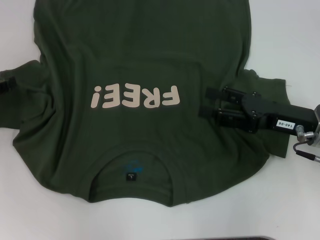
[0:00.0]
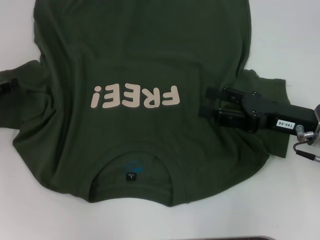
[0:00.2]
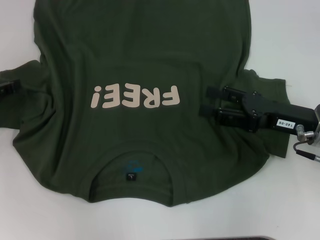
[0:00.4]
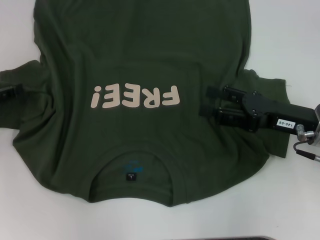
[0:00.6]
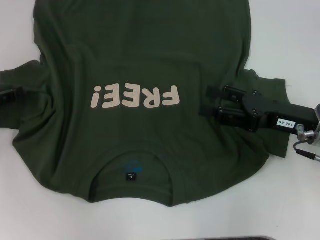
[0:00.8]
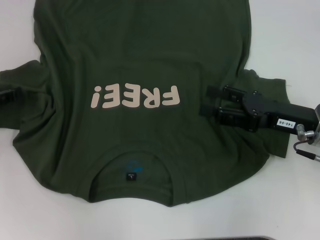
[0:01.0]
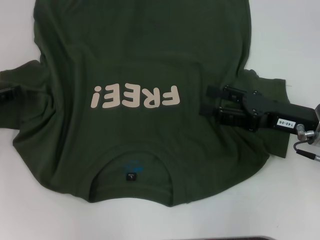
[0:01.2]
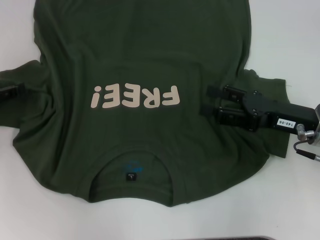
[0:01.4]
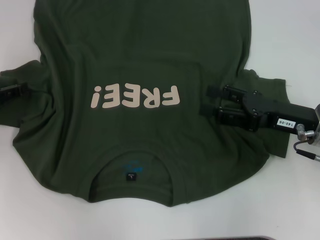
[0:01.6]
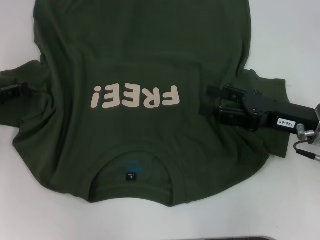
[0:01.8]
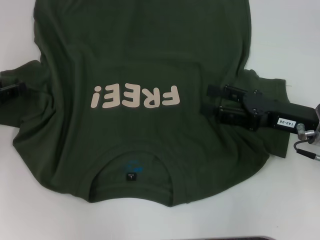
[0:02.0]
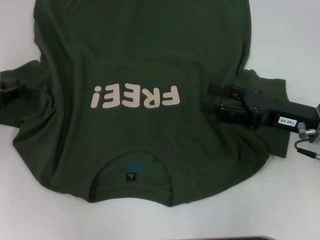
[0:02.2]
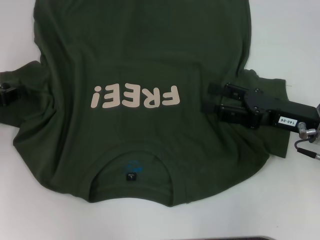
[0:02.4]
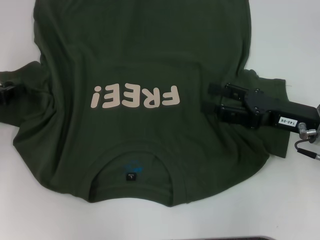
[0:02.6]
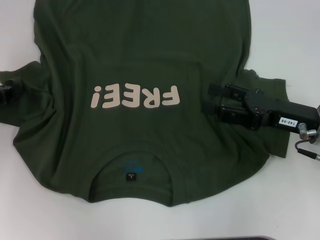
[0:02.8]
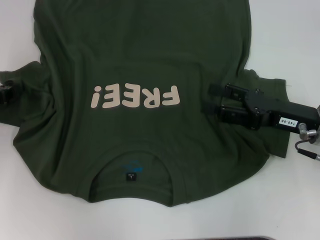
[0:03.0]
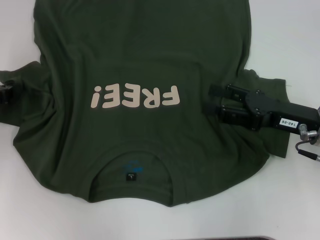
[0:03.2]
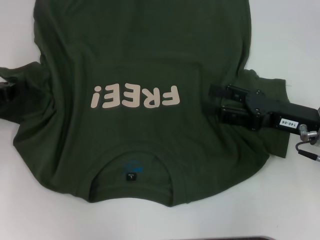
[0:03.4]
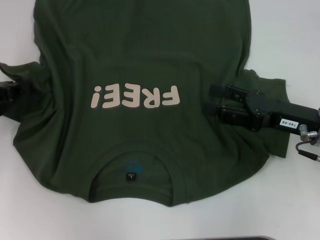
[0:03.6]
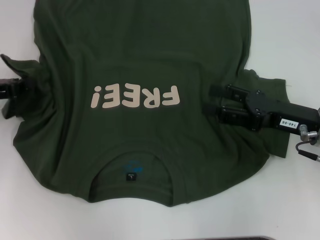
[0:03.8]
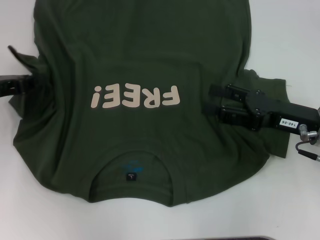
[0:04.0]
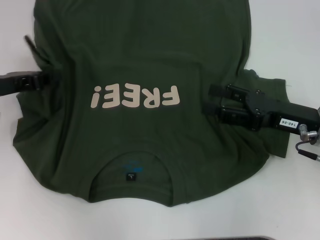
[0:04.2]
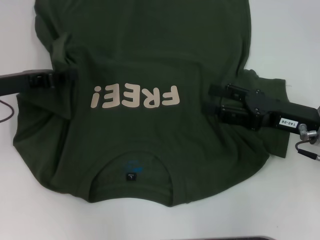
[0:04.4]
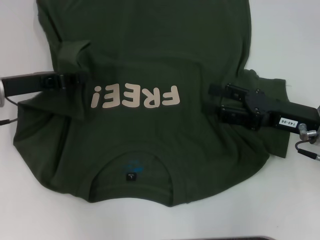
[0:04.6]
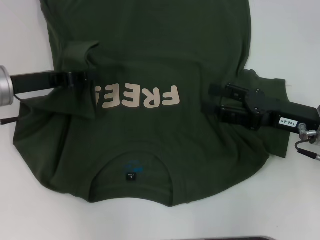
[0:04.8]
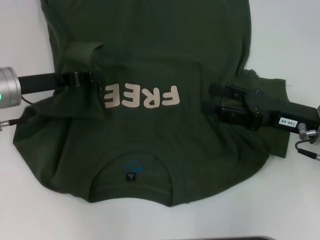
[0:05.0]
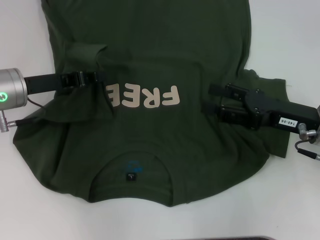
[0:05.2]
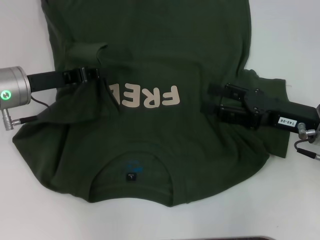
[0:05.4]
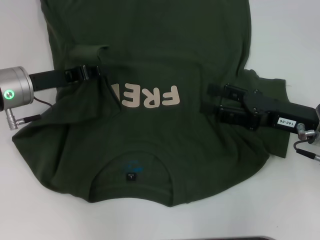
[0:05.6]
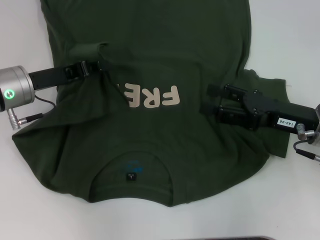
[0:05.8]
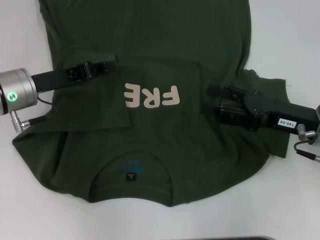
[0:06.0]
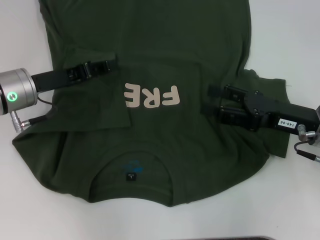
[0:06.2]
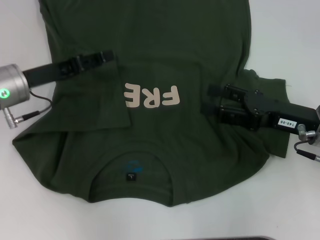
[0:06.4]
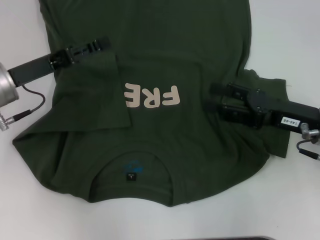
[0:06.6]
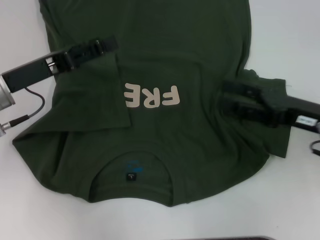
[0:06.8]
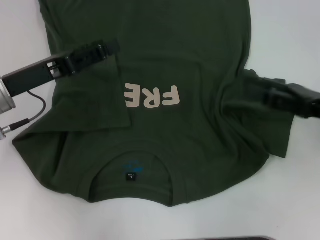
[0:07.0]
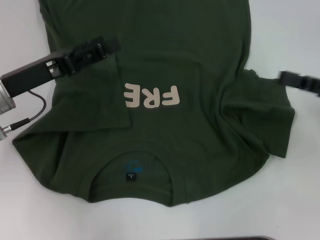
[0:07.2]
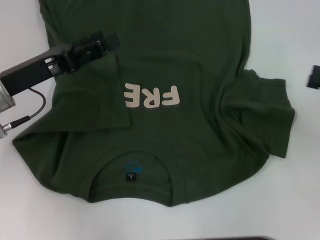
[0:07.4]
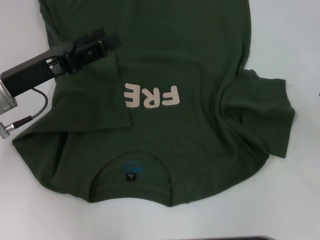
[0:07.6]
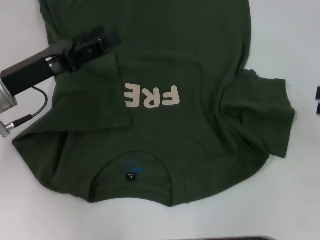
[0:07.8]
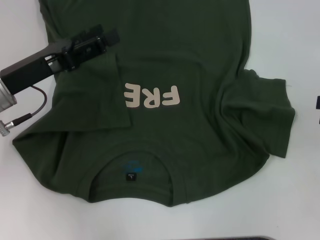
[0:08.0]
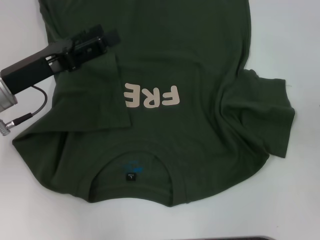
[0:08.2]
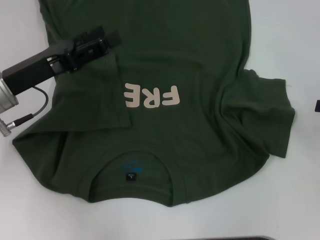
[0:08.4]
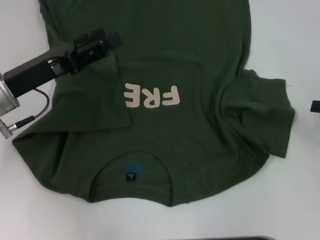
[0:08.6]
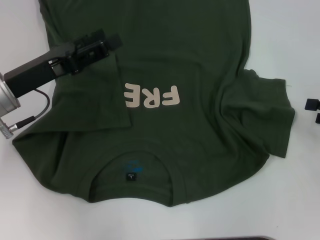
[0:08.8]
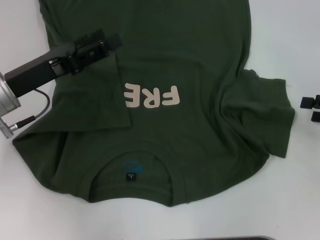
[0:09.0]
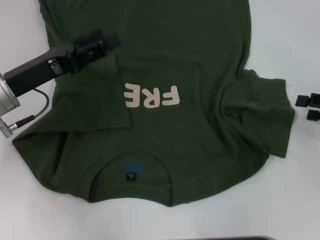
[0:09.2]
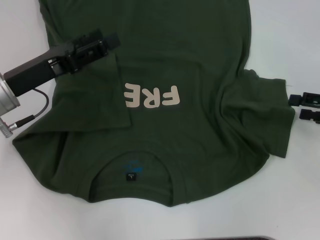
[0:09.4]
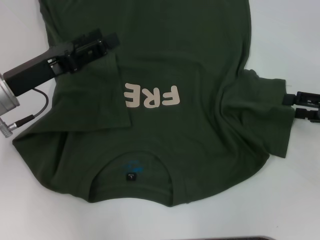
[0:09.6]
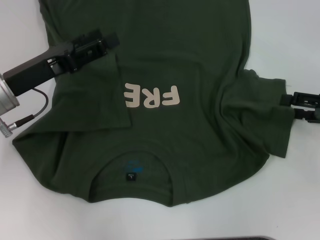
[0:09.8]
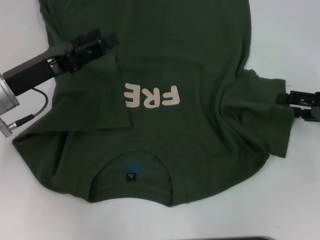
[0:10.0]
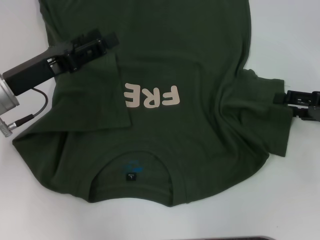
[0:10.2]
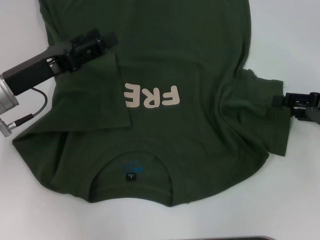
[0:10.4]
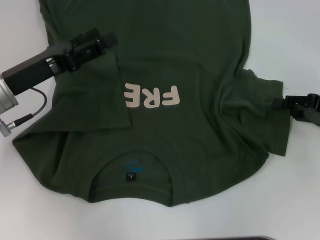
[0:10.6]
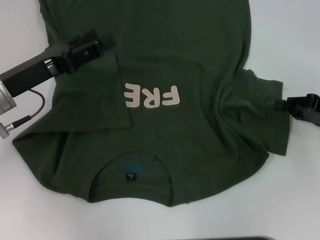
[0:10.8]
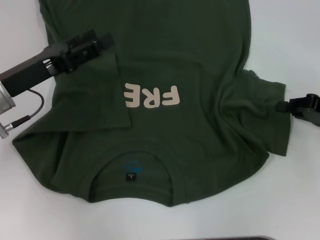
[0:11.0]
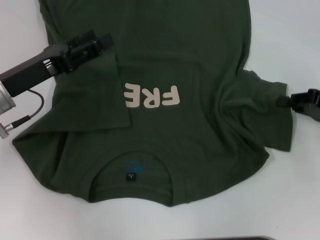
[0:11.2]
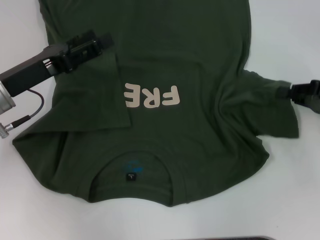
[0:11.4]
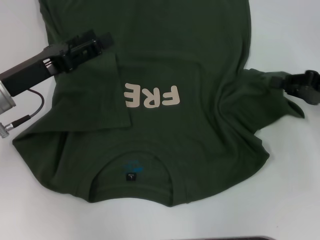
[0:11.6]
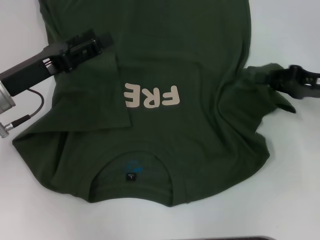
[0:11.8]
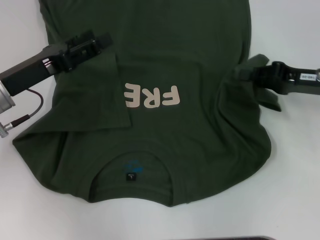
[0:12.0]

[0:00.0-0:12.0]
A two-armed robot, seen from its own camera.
Step, 0:00.0 to 0:05.8: Fold the bottom left sleeve with your left hand.
0:00.0 to 0:01.6: Neither gripper changes place.
0:03.0 to 0:04.4: The left gripper travels to the right by approximately 5 cm.
0:04.4 to 0:06.0: The left gripper is displaced to the right by about 5 cm.
0:06.0 to 0:07.6: The right gripper goes about 15 cm to the right and upward, while the left gripper changes place by some 5 cm, and opens its fingers.
0:09.0 to 0:10.4: The grippers stay close to where they were, moving slightly.
0:10.4 to 0:12.0: The right gripper travels to the left by about 5 cm, and closes its fingers.

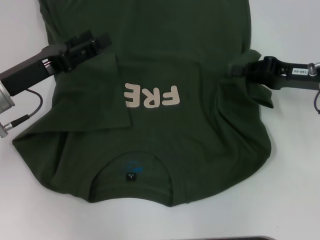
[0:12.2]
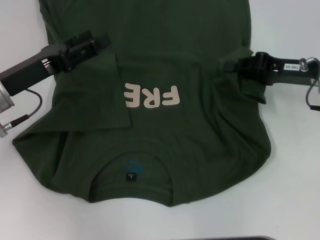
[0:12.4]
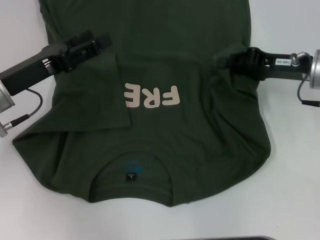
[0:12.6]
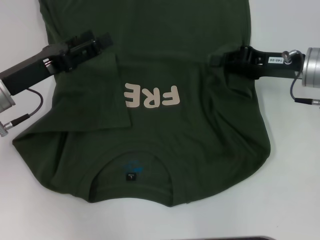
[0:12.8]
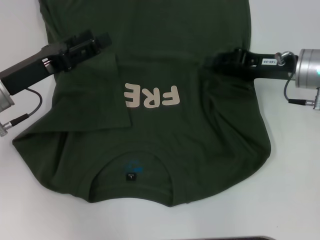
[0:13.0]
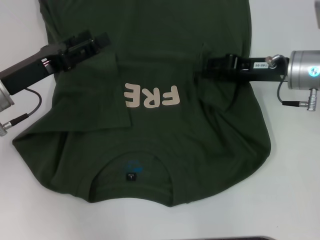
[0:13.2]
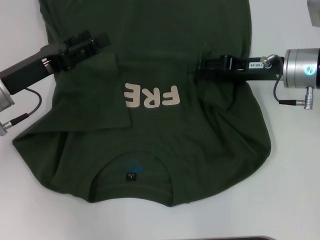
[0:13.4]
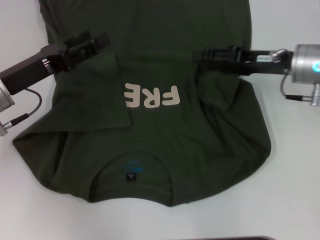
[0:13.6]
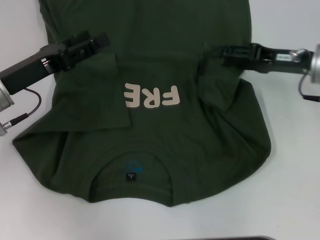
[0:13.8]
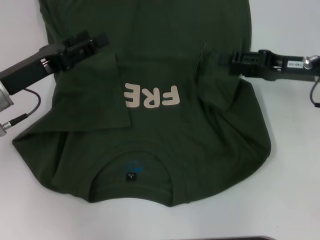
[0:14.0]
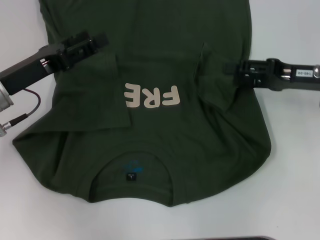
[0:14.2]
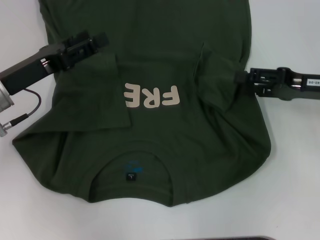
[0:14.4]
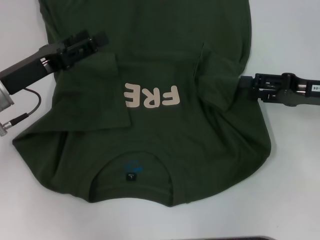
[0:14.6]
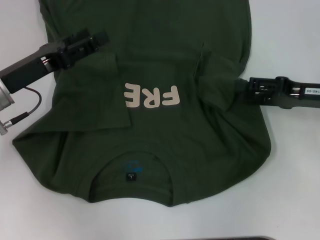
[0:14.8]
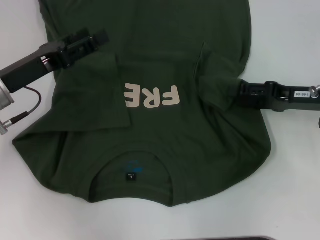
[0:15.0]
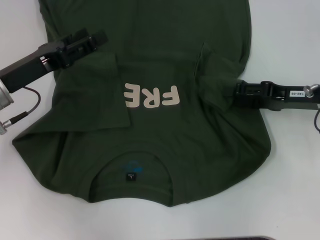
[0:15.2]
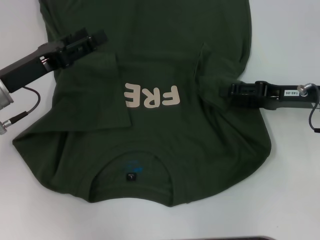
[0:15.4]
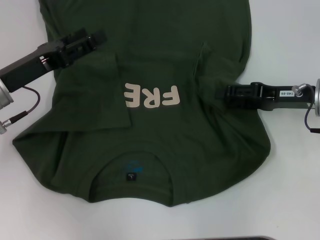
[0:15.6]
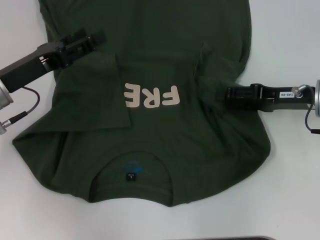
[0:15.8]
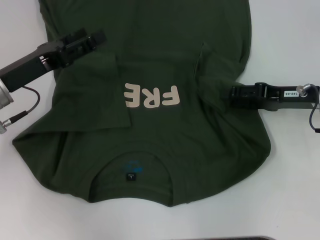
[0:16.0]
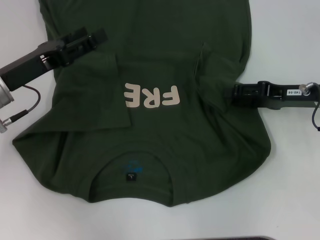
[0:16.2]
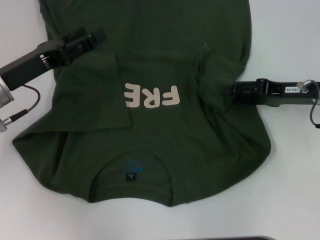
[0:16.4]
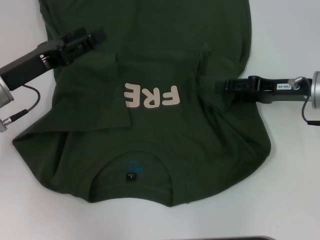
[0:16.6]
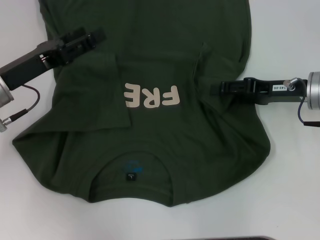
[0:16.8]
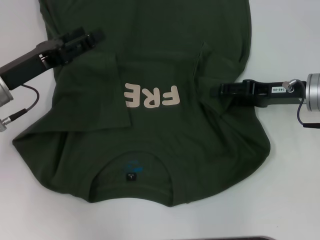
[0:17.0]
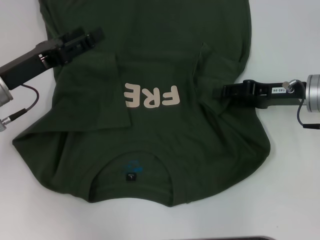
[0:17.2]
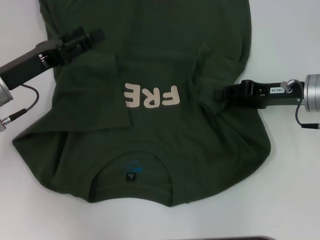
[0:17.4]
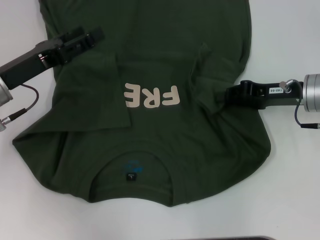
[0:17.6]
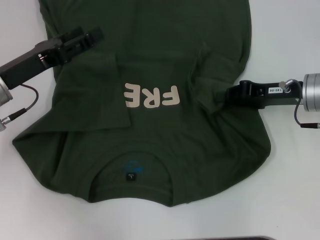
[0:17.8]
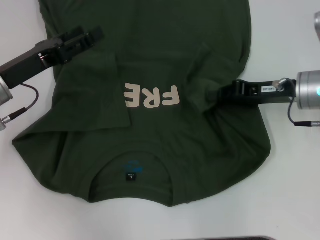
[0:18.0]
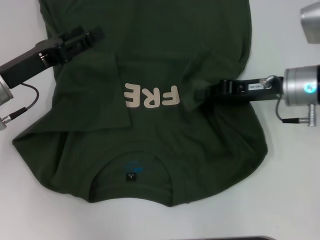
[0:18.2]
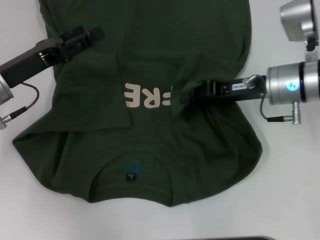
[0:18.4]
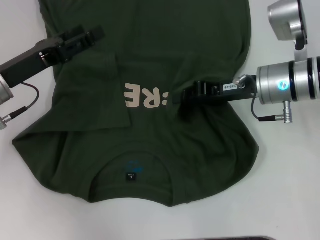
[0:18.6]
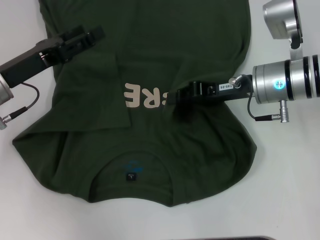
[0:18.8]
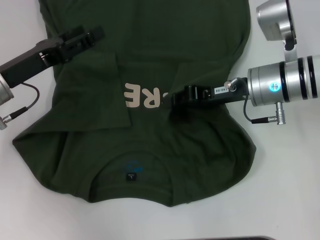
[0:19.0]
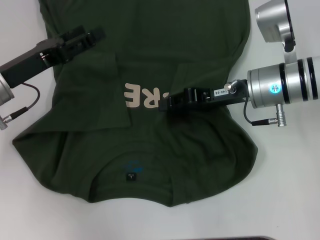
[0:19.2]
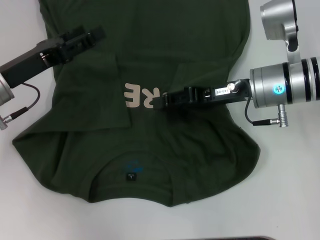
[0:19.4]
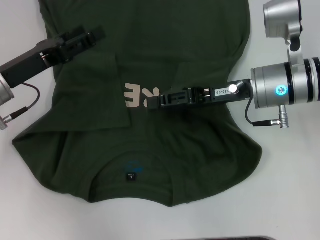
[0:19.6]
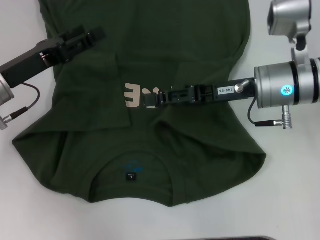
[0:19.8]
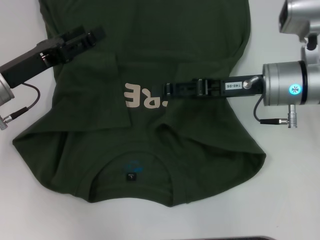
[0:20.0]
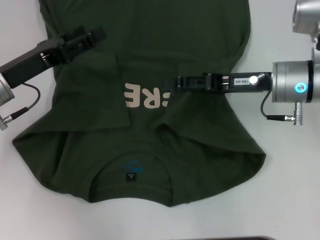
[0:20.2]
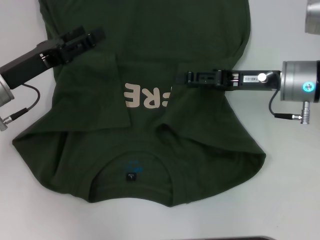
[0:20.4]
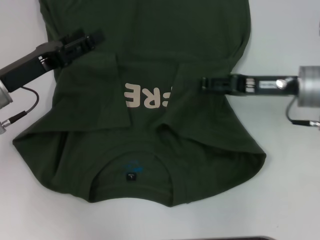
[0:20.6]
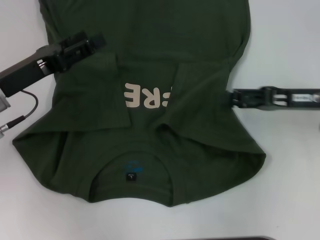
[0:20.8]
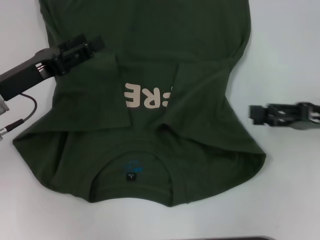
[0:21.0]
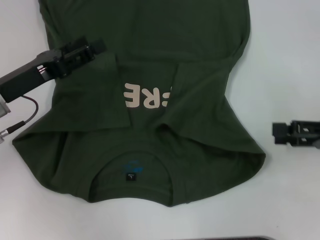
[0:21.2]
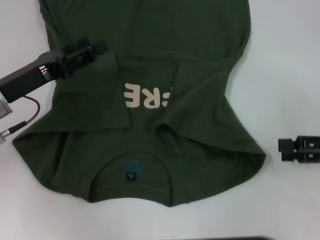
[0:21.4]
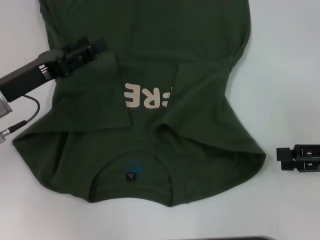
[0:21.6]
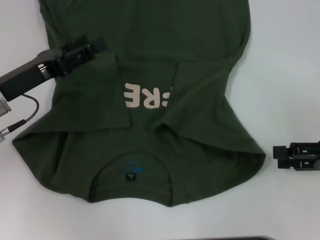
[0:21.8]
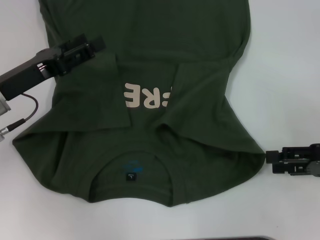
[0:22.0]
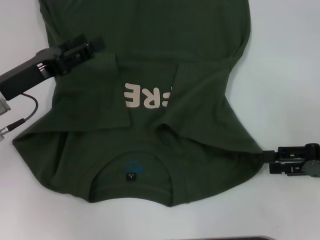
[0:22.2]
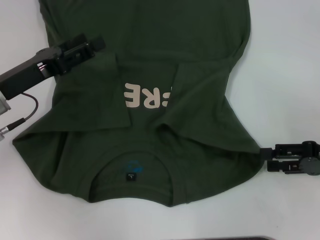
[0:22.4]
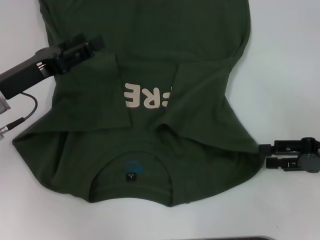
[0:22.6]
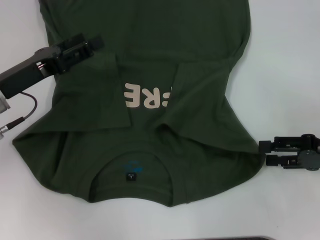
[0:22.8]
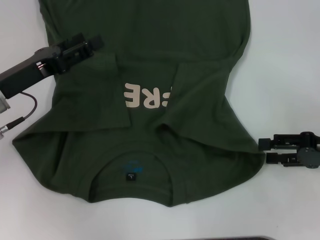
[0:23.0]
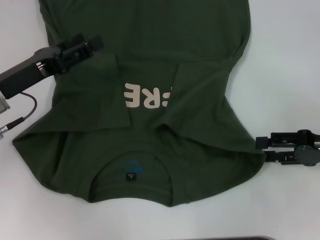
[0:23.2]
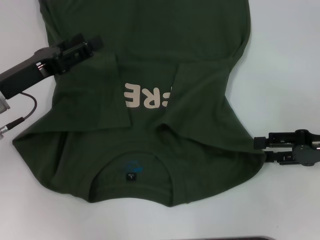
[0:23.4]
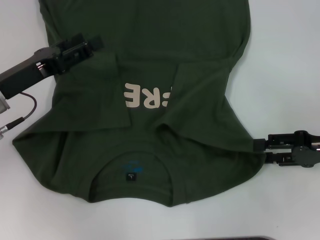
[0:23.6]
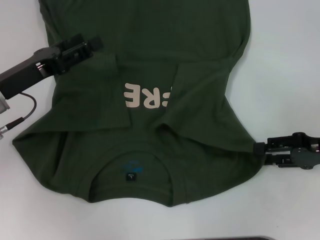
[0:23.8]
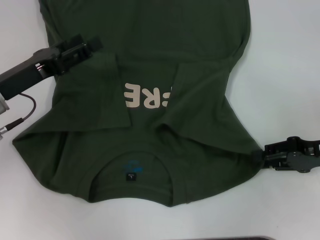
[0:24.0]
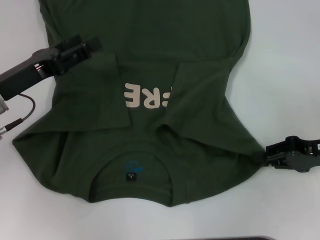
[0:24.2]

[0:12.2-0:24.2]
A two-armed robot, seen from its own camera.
Step, 0:12.2 to 0:19.8: Fold the bottom right sleeve with your right hand.
0:12.2 to 0:13.8: The right gripper opens its fingers.
0:15.2 to 0:16.6: The grippers make only small movements.
0:16.6 to 0:18.2: The right gripper closes up.
0:18.2 to 0:19.8: The right gripper heads to the left, covering roughly 5 cm, and opens up.
0:19.8 to 0:21.2: The right gripper moves to the right and backward, roughly 20 cm.
0:21.2 to 0:22.6: There are only small adjustments of the grippers.
0:22.6 to 0:24.2: The right gripper closes up.
